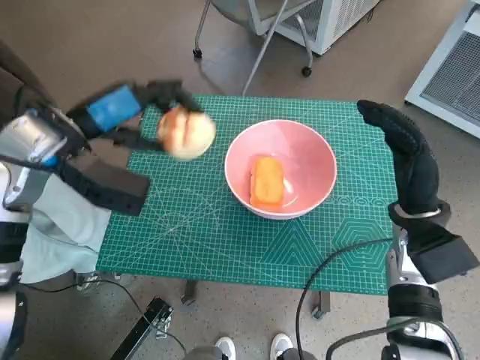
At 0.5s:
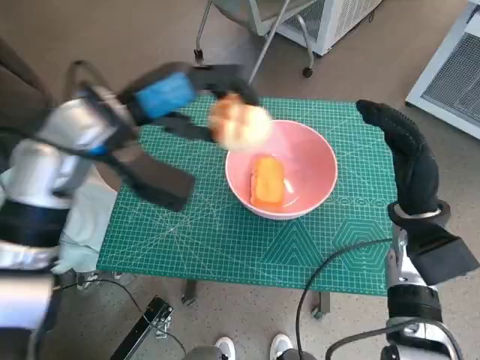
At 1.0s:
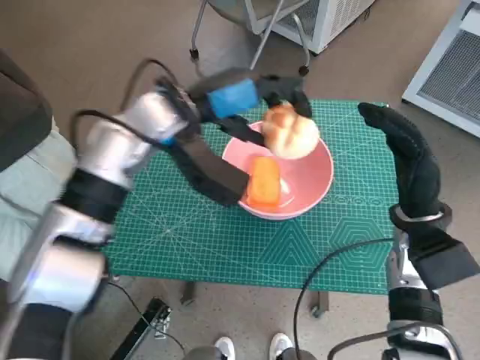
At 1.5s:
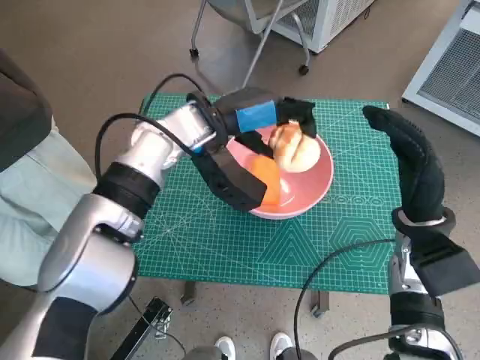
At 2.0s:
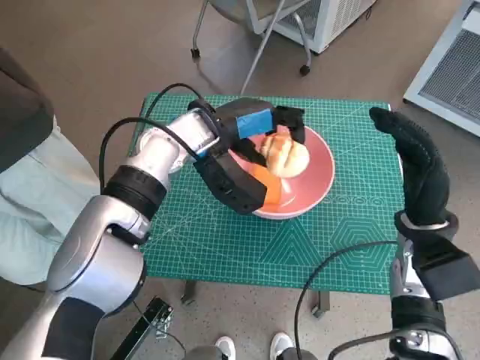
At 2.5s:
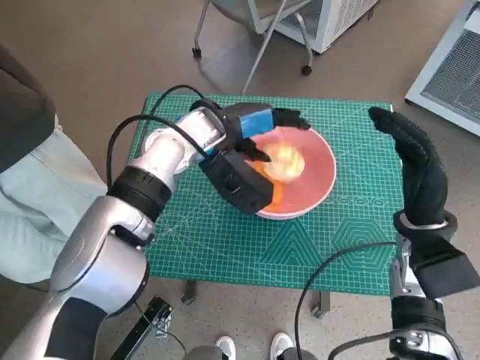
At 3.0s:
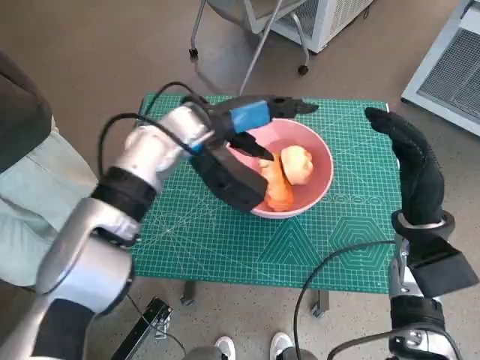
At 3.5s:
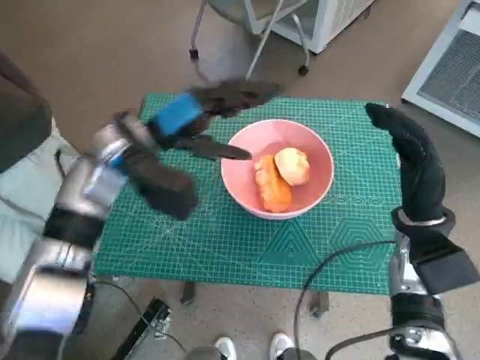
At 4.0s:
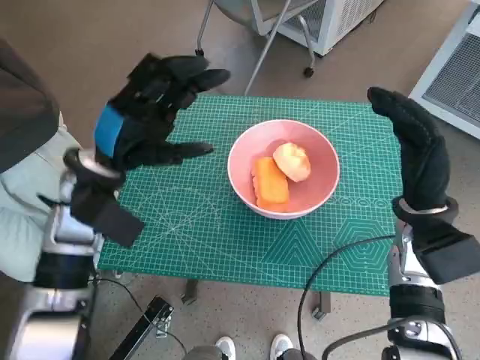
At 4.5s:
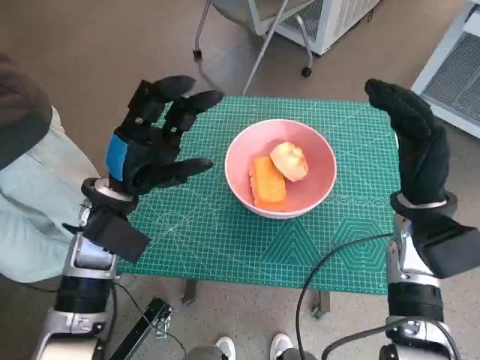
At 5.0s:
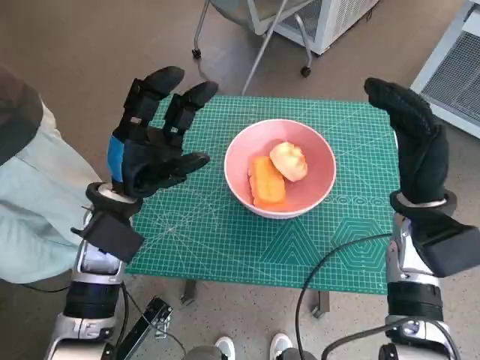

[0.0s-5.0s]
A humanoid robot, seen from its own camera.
Task of the whole recording: Push the bowl to the center of the table and put the bread into the bowl.
Step, 0.0s to 3.0s: Place the round bread in pink bowl with left hand.
0.0s to 2.5s: The left hand heads to the right, covering about 15 cm.
2.5s to 5.0s: The left hand heads to the left, backward and downward, covering some 15 cm.

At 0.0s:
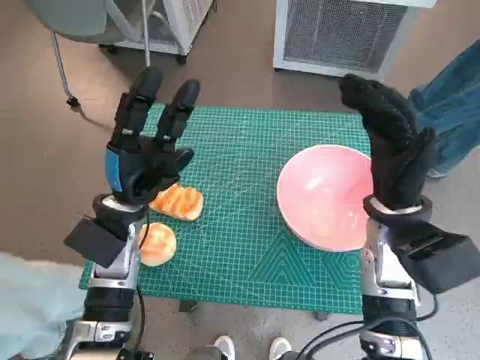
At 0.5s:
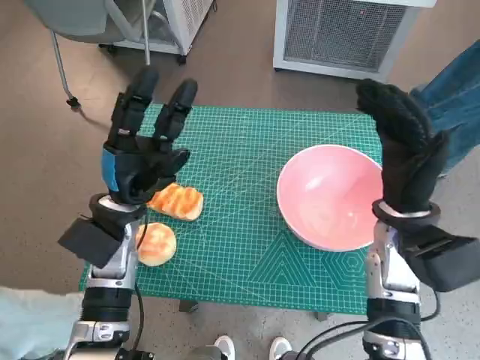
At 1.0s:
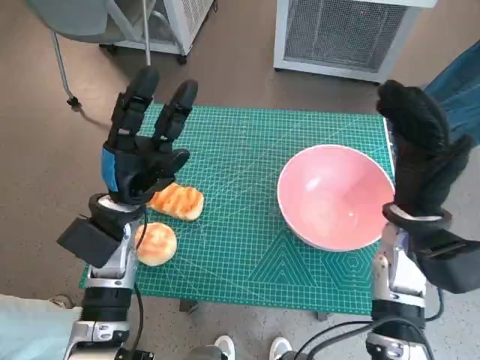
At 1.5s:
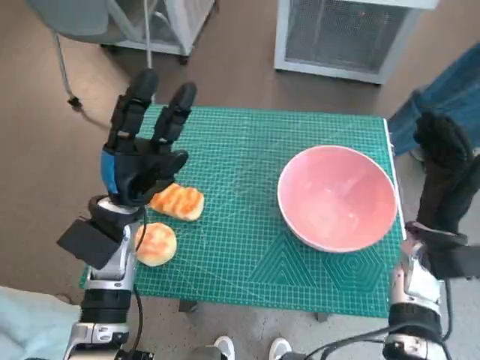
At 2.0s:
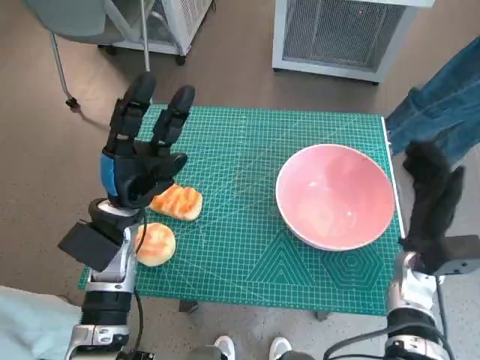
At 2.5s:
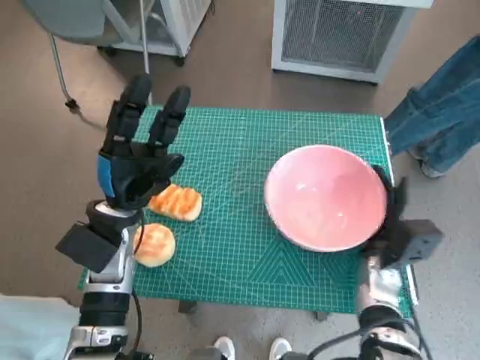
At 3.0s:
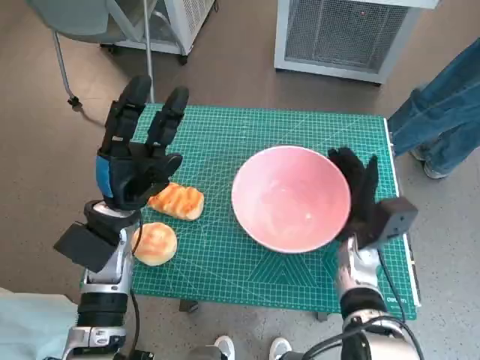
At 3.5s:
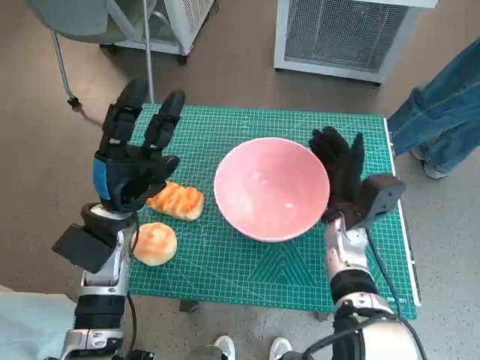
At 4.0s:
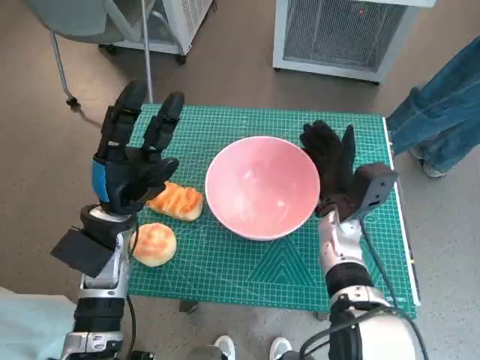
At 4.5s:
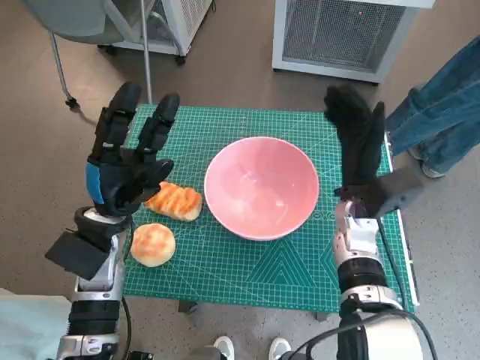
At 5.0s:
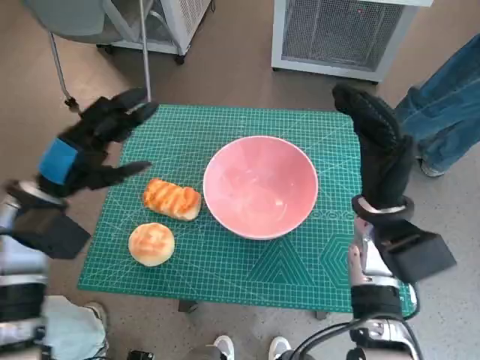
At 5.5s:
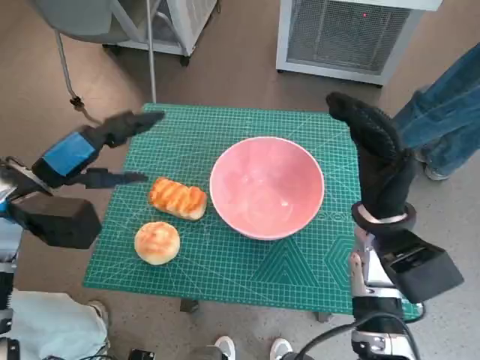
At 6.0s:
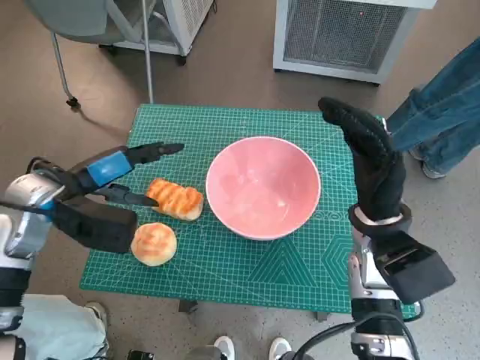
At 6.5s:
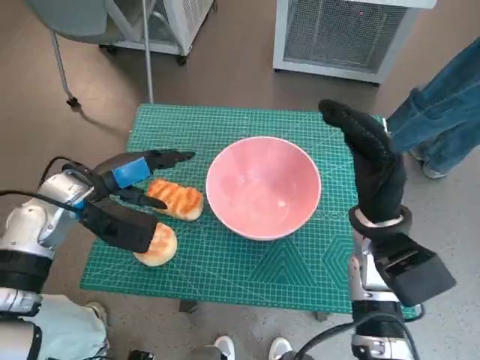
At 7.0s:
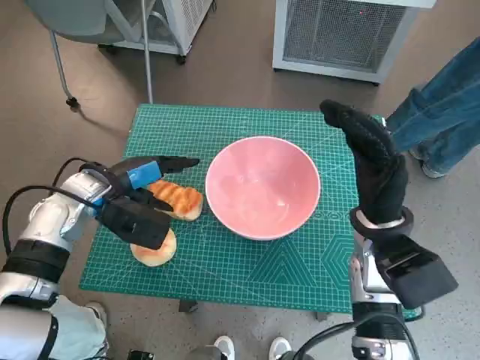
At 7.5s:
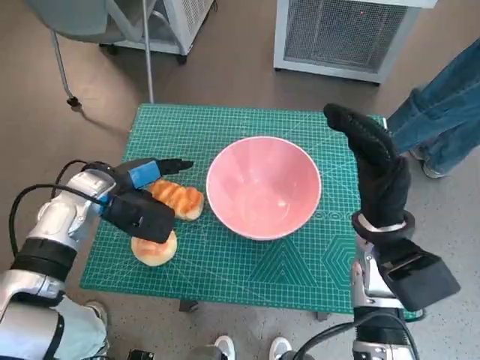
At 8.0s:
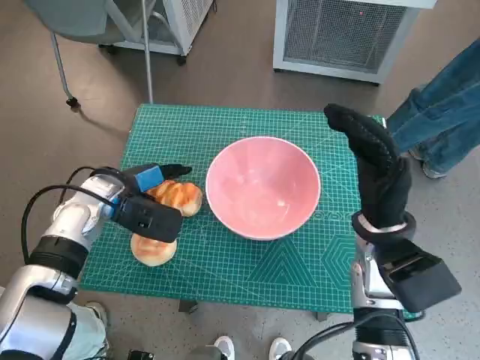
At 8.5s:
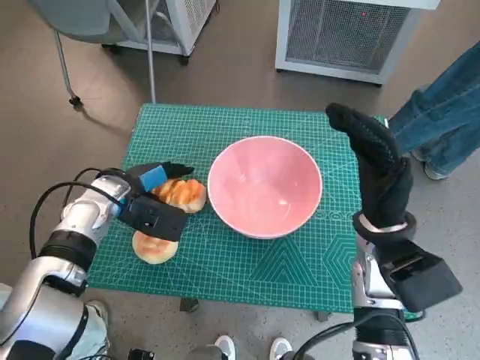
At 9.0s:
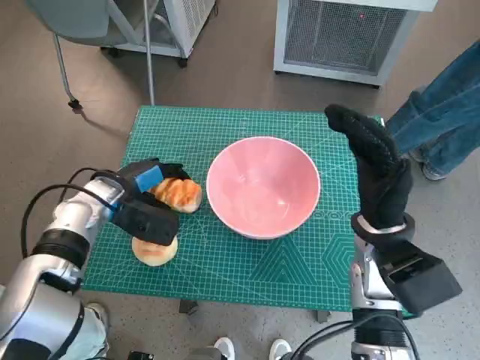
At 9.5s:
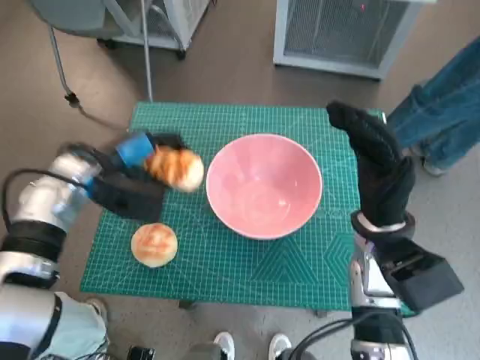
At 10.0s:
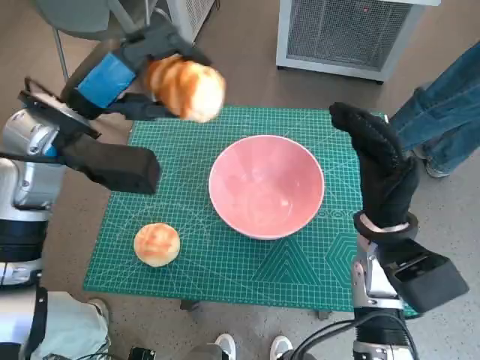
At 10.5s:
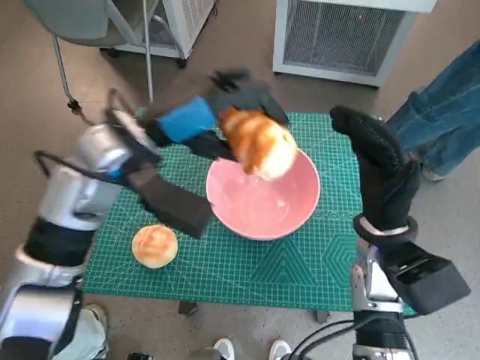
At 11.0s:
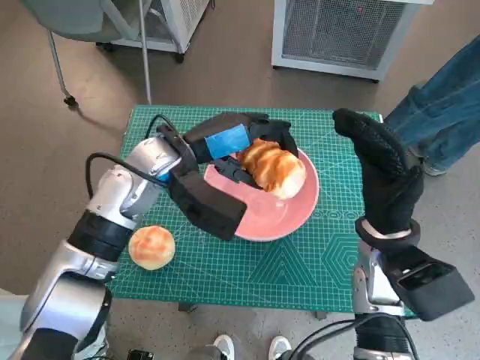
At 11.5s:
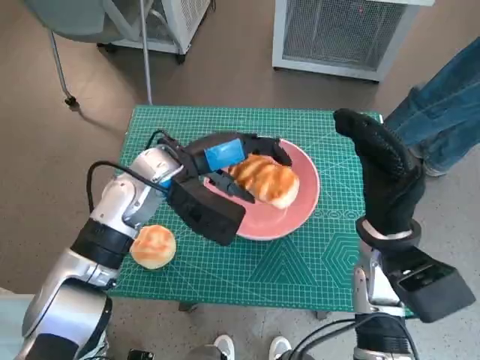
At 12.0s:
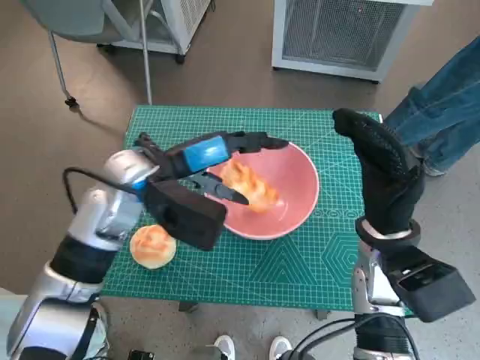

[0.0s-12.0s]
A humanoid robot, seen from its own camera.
Task of the whole recording: Push the bowl to the center of the table and put the bread into the bowl.
Step, 0.0s to 4.0s: Move the pink bowl to the center of table with right hand.
Step, 4.5s to 8.5s: Grasp the long bread with left hand.
2.0s to 4.0s: The right hand is displaced to the left and forward by roughly 10 cm.
4.0s to 6.0s: The right hand heads upward, covering approximately 5 cm; the left hand travels upward and to the left by about 10 cm.
6.0s to 8.0s: The left hand shifts about 5 cm downward.
8.0s to 10.0s: The left hand is displaced upward by about 15 cm.
10.0s to 12.0s: The left hand heads to the right and downward, covering roughly 10 cm.

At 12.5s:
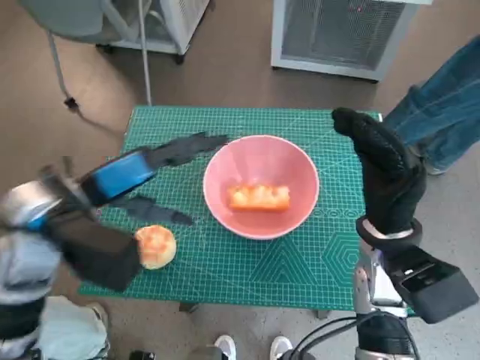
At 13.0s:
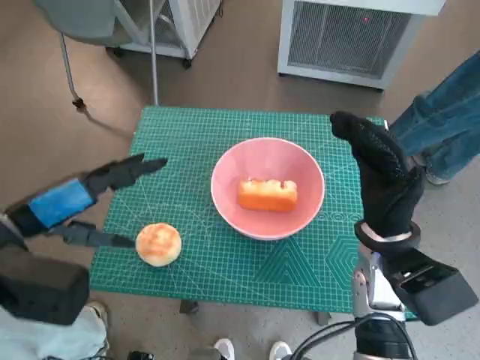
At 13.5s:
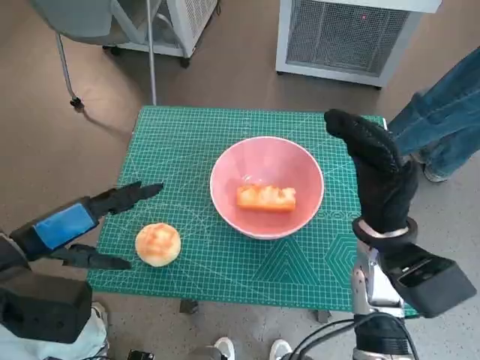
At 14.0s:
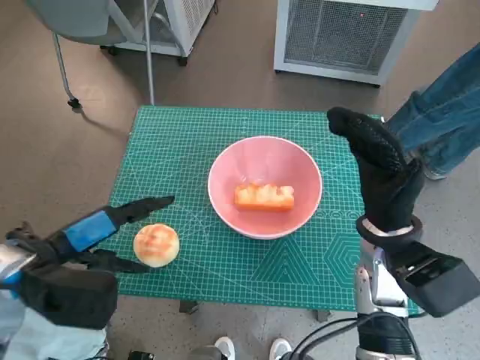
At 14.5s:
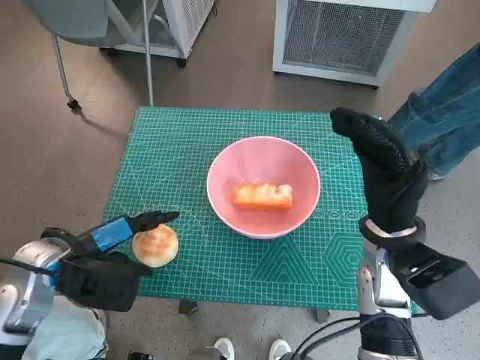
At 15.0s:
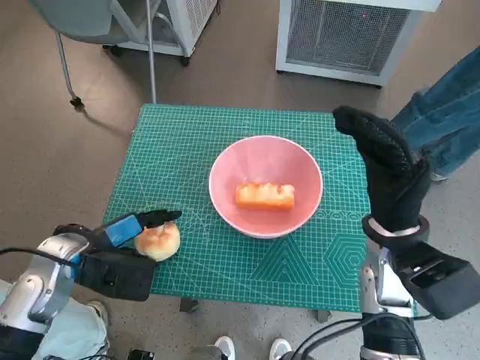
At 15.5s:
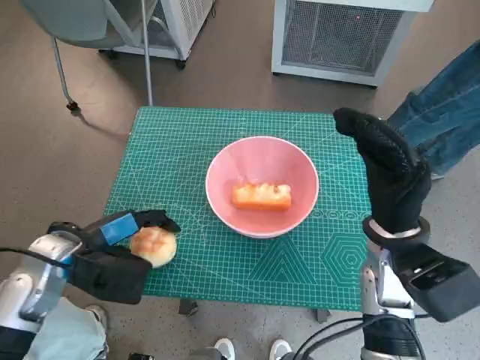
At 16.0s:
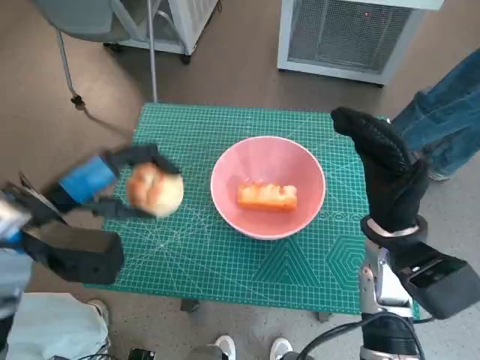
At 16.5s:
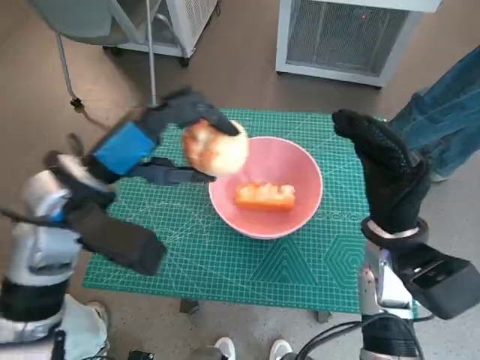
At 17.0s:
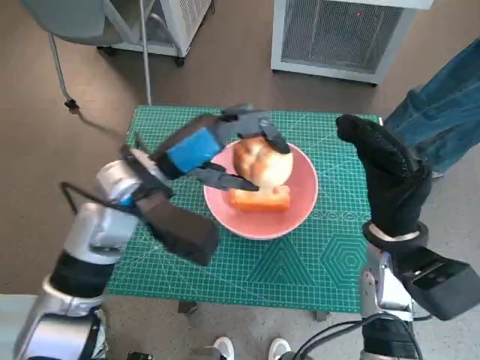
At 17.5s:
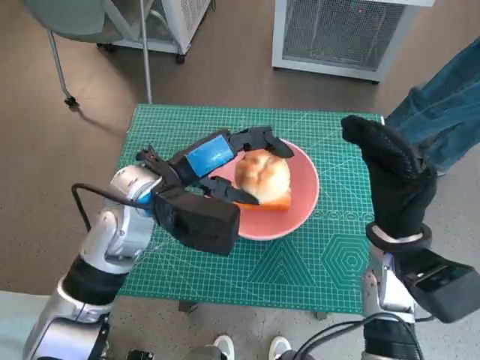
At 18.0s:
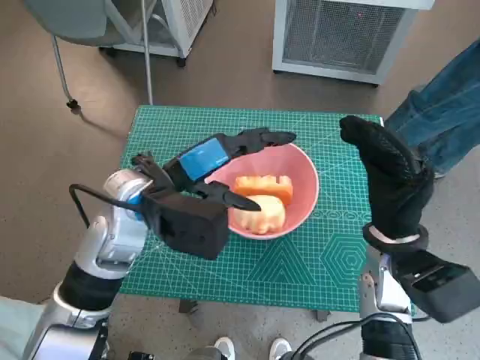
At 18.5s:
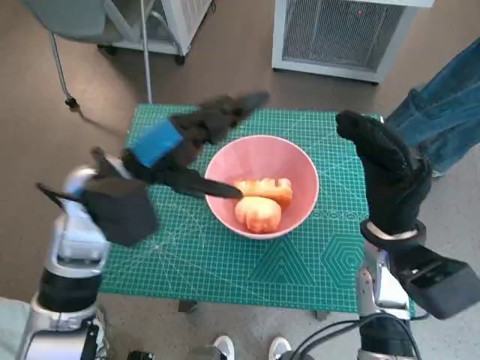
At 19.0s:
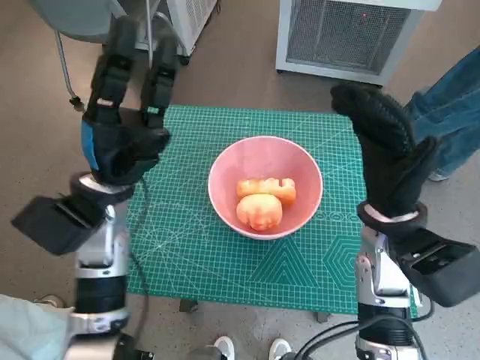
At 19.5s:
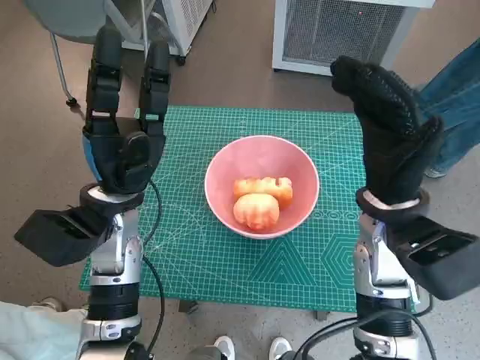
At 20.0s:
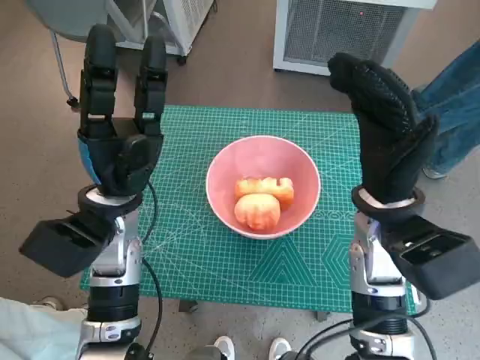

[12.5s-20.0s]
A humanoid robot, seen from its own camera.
Task of the whole recording: Push the bowl to the center of the table and put the bread into the bowl.
Step, 12.5s to 15.0s: Grasp the round bread with left hand.
Step, 15.5s to 17.5s: Place the round bread in pink bowl with left hand.
12.5s to 14.5s: The left hand moves downward and to the left, some 10 cm.
14.5s to 16.5s: The left hand is displaced upward and to the right by about 10 cm.
16.5s to 18.0s: The left hand is displaced to the right by roughly 5 cm.
18.0s to 20.0s: The right hand shifts about 5 cm upward, while the left hand changes place by about 5 cm.
